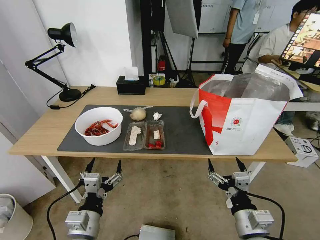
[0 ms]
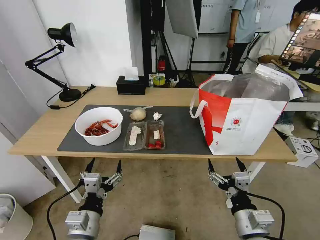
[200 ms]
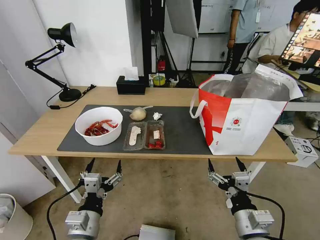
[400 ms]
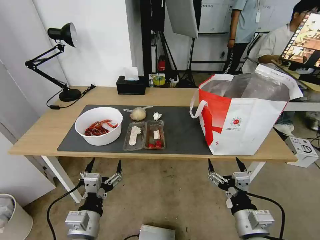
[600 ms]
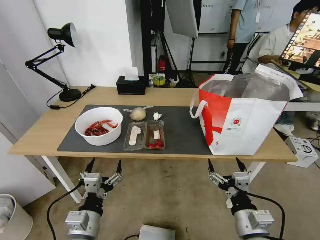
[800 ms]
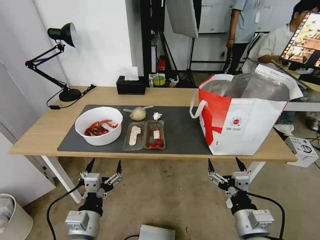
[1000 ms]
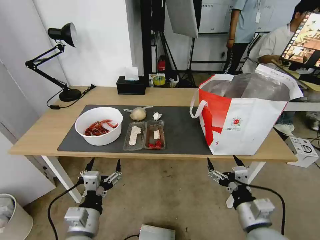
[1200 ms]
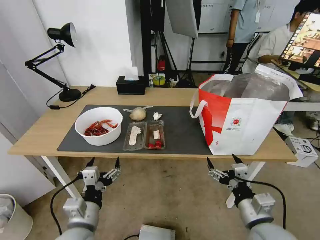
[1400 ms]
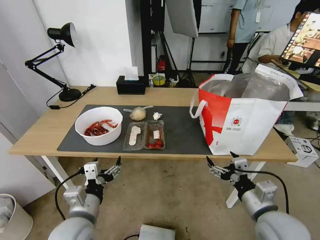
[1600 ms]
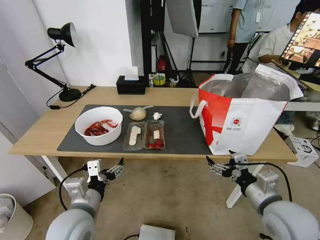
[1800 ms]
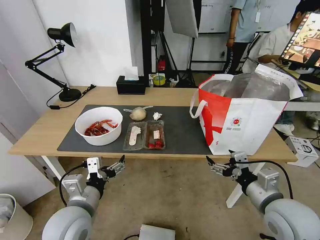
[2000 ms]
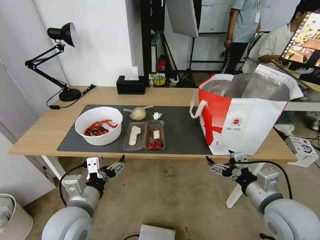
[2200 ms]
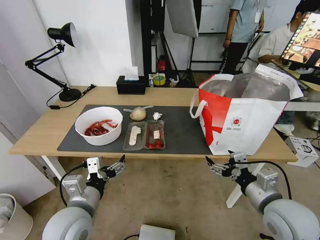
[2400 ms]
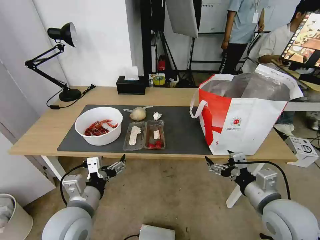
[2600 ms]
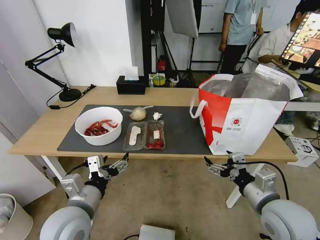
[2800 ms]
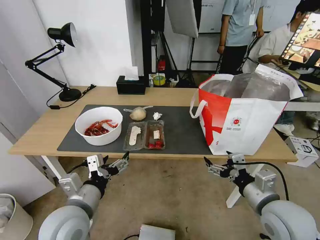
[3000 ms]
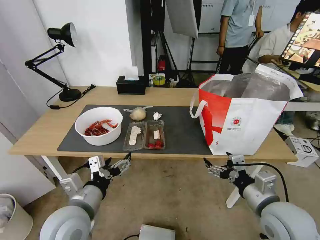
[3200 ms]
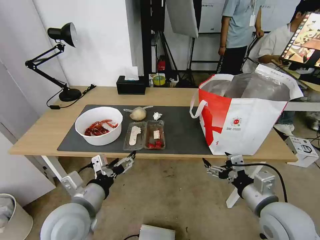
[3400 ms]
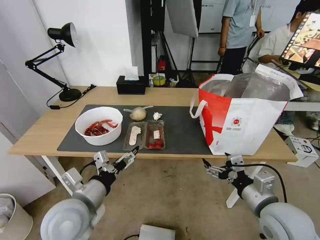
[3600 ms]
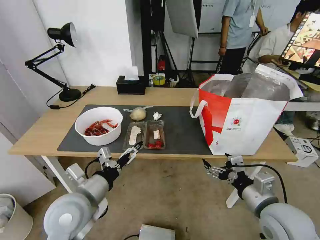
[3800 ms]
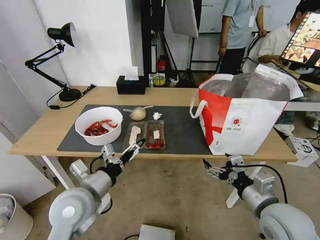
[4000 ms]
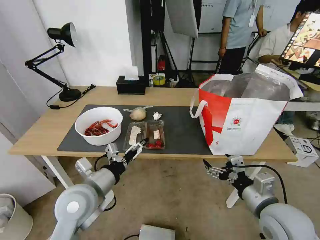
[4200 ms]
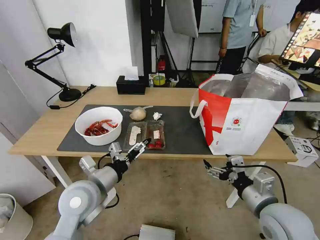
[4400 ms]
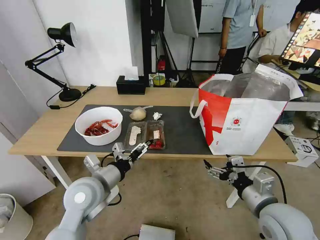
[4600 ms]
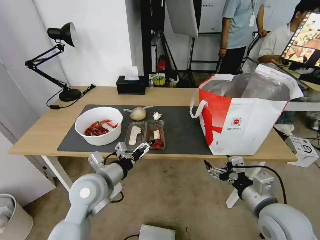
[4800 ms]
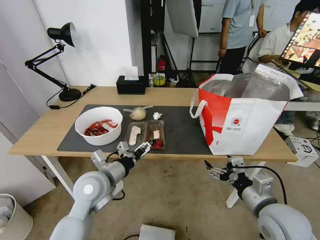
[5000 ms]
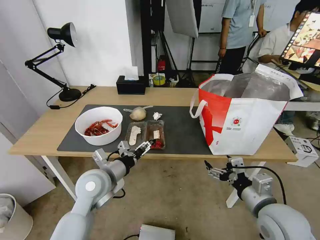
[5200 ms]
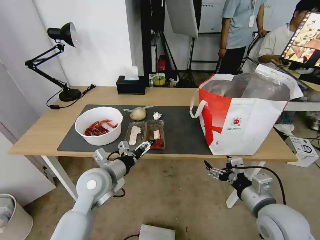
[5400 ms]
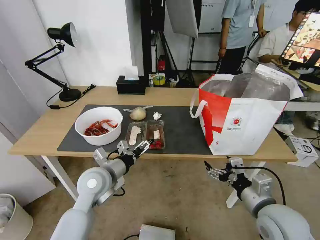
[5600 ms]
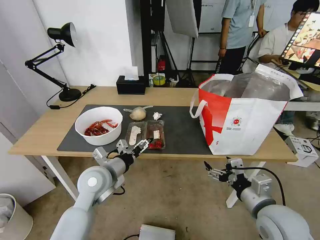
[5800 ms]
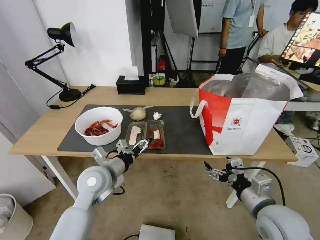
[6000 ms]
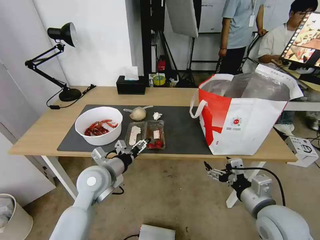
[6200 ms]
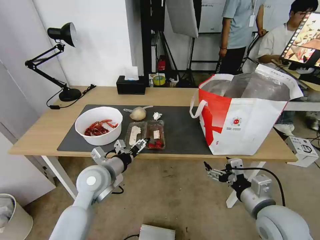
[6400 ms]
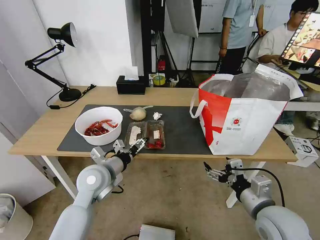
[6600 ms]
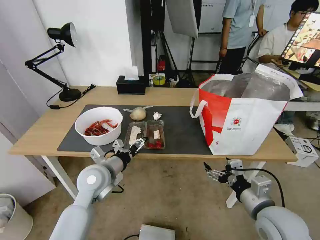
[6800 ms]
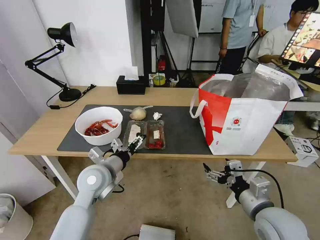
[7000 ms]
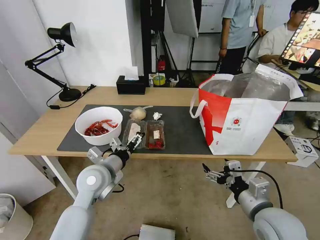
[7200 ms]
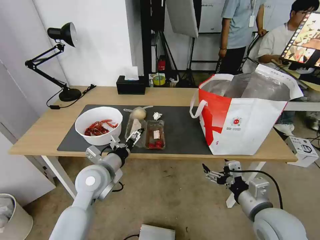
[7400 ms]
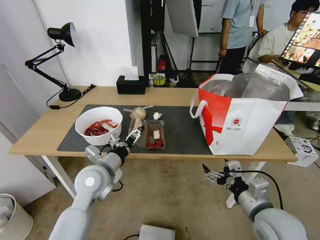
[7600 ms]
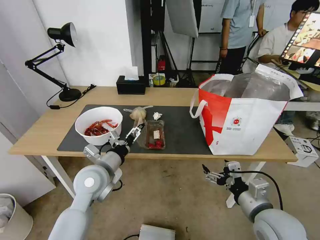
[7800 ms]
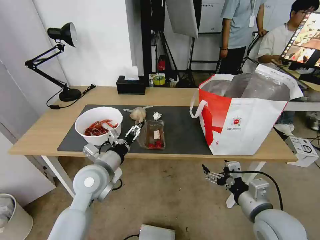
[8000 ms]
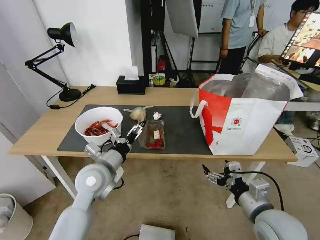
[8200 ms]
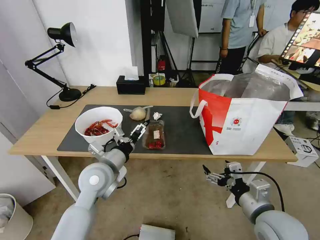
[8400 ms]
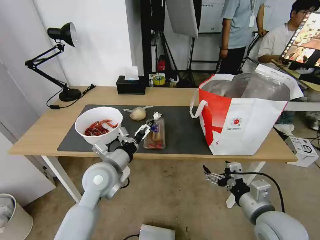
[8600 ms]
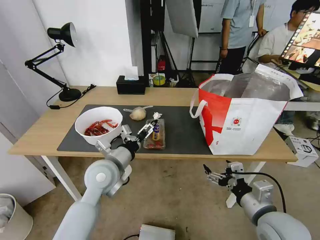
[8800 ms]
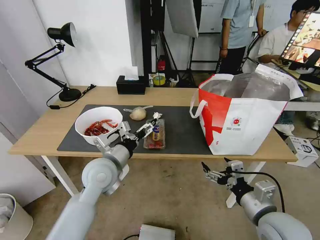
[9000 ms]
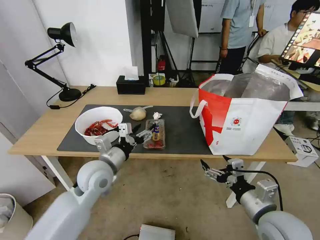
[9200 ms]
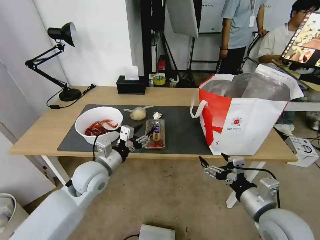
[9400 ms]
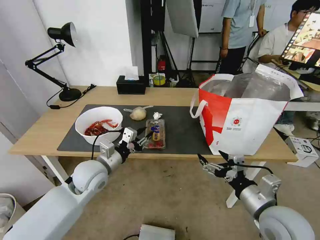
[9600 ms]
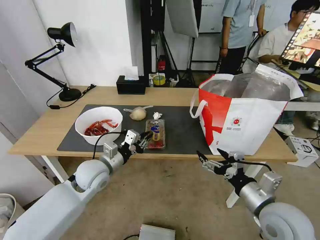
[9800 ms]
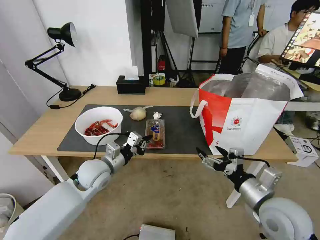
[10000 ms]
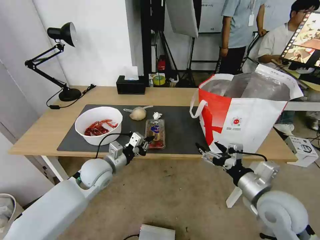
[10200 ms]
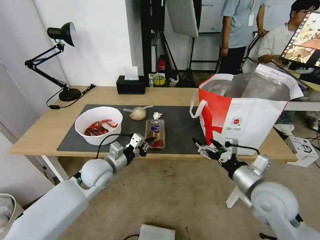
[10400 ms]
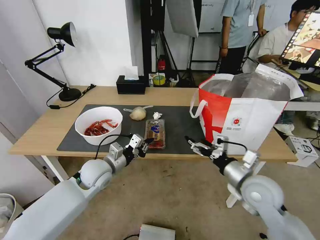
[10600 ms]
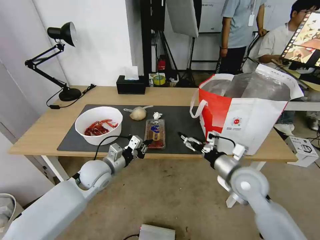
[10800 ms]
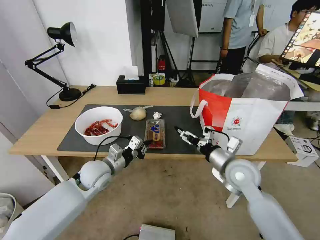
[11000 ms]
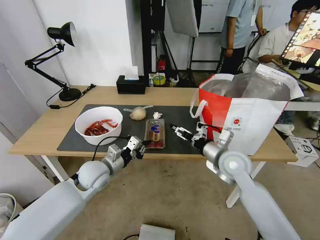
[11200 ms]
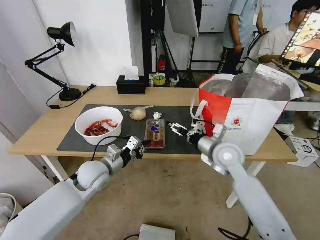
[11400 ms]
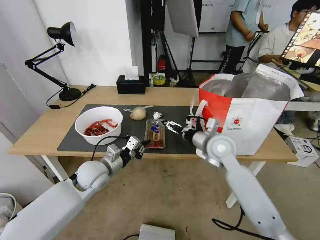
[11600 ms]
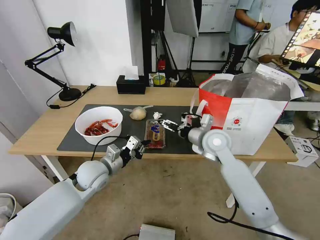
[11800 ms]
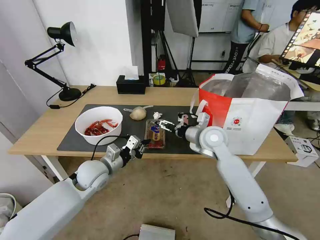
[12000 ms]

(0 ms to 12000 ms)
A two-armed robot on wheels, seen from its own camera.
Task of the whole recording: Pick up the trash from the table and place it into the takeout bag.
1600 ms - 3000 ms: There are only small adjustments of the grippers.
3000 ms - 4400 ms: The left gripper goes approximately 5 cm forward.
4400 ms - 6000 ms: The left gripper shifts about 5 cm forward.
6000 ms - 9000 ms: The grippers stay close to where they were, moving slightly.
9000 ms - 10400 ms: The right gripper shifts some 5 cm forward. Meanwhile the left gripper is displaced downward by about 5 cm, and closes its fingers.
10400 ms - 12000 ms: The right gripper heads forward and to the left, covering some 20 cm.

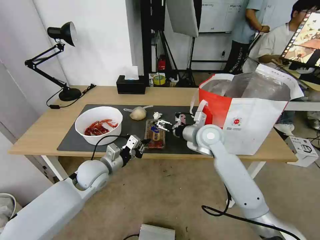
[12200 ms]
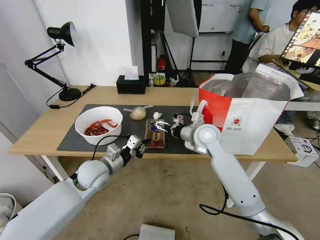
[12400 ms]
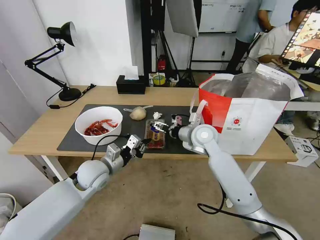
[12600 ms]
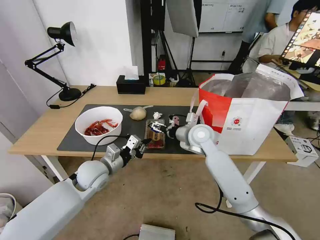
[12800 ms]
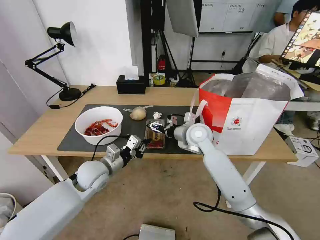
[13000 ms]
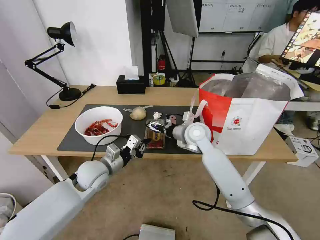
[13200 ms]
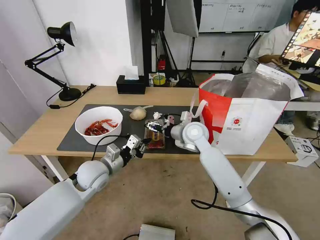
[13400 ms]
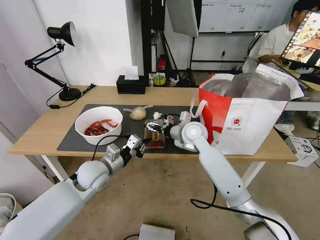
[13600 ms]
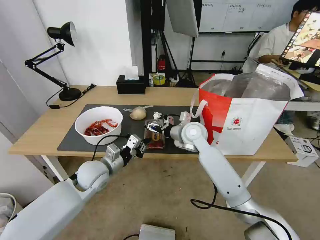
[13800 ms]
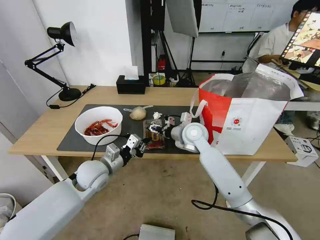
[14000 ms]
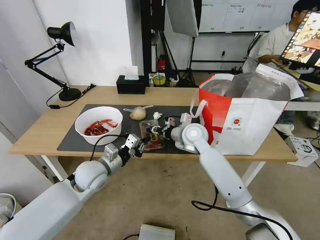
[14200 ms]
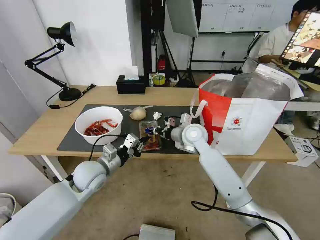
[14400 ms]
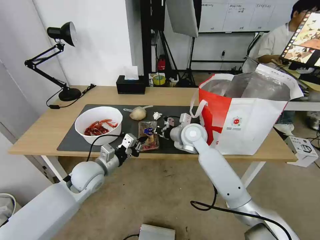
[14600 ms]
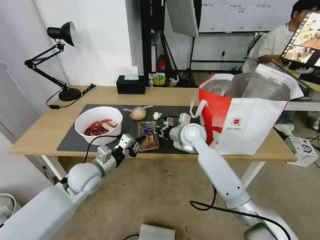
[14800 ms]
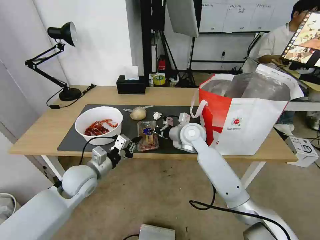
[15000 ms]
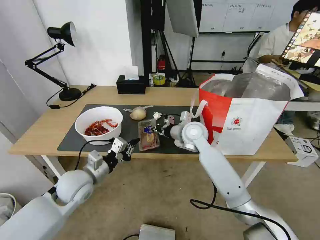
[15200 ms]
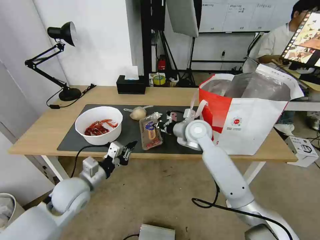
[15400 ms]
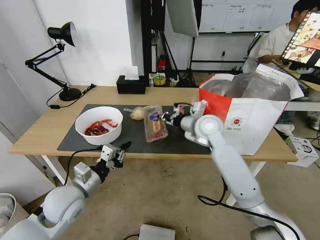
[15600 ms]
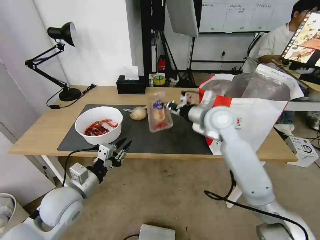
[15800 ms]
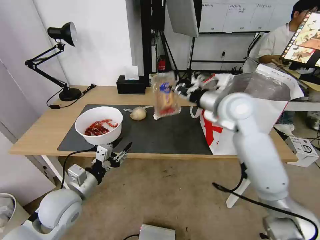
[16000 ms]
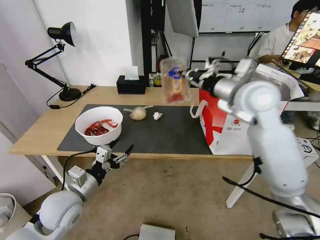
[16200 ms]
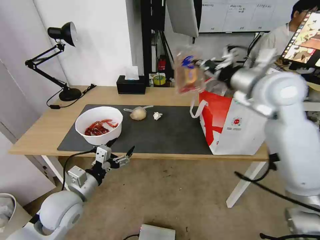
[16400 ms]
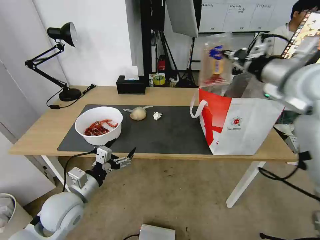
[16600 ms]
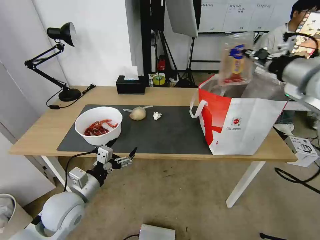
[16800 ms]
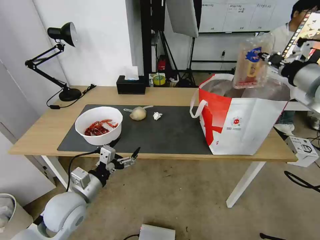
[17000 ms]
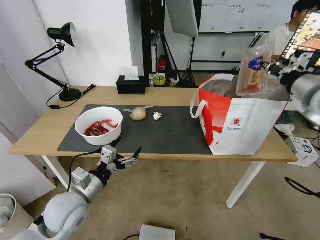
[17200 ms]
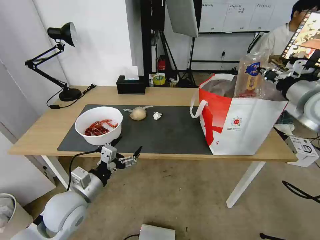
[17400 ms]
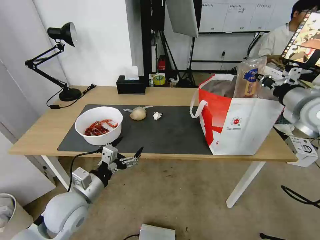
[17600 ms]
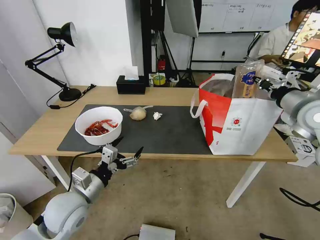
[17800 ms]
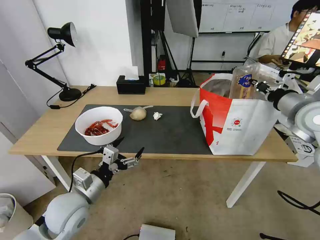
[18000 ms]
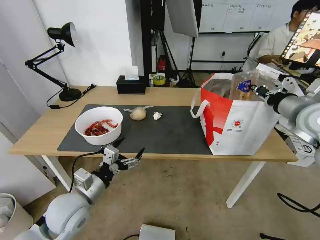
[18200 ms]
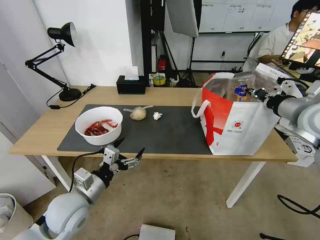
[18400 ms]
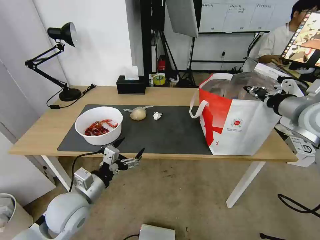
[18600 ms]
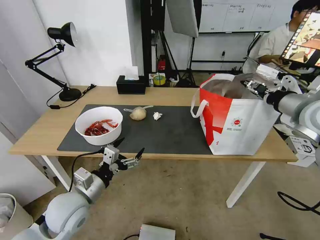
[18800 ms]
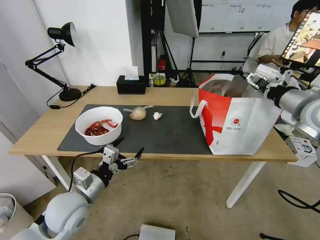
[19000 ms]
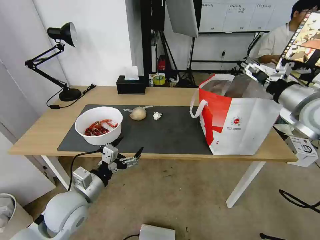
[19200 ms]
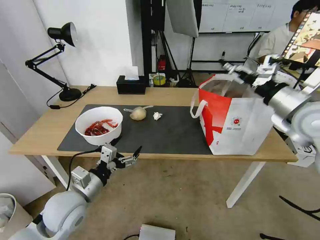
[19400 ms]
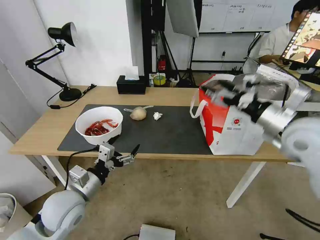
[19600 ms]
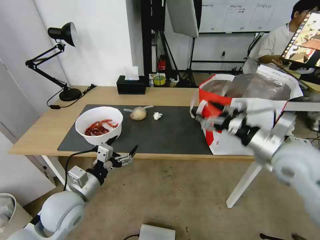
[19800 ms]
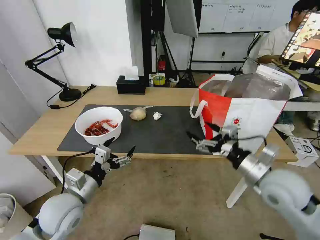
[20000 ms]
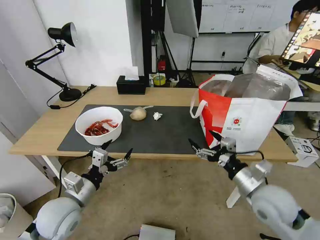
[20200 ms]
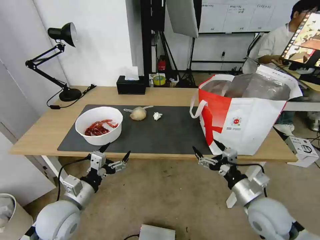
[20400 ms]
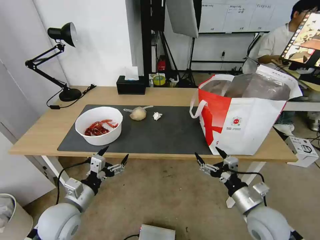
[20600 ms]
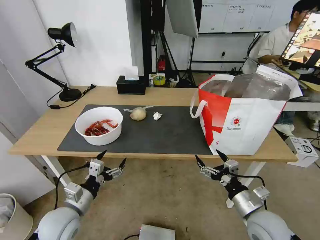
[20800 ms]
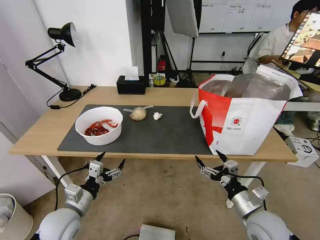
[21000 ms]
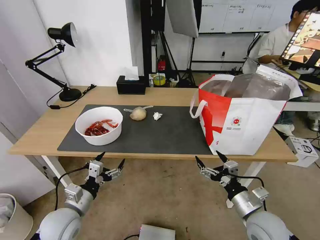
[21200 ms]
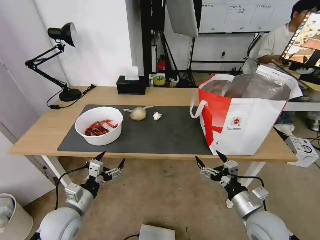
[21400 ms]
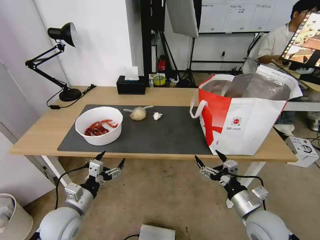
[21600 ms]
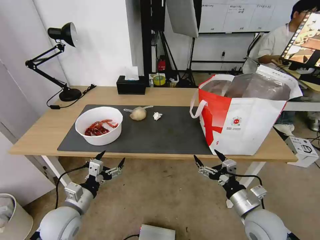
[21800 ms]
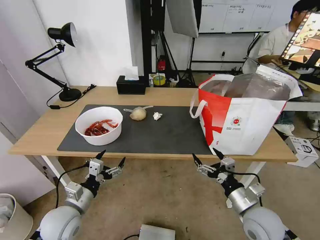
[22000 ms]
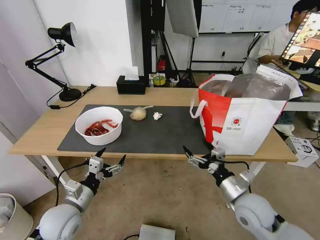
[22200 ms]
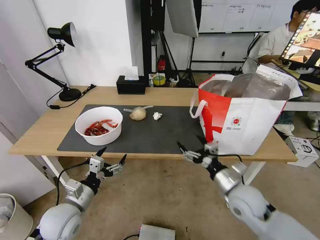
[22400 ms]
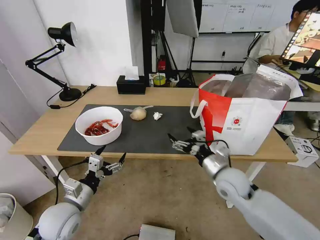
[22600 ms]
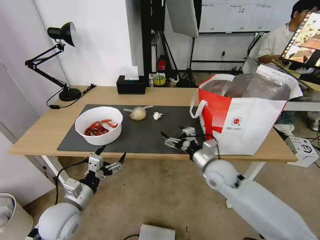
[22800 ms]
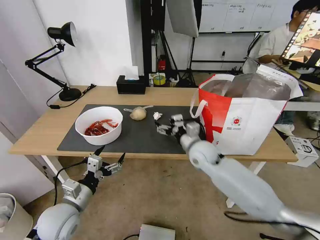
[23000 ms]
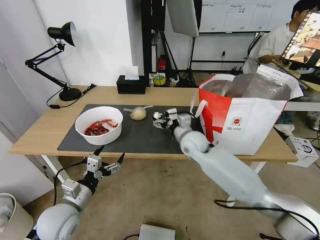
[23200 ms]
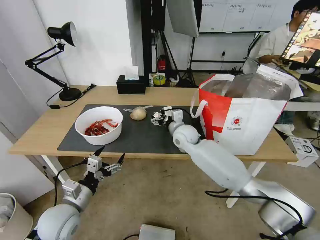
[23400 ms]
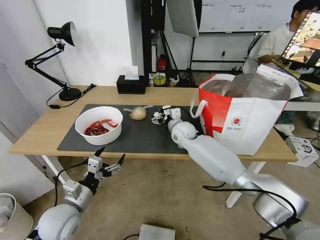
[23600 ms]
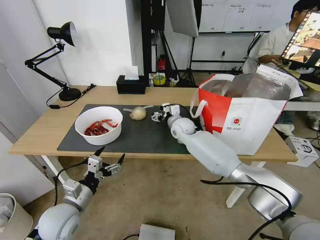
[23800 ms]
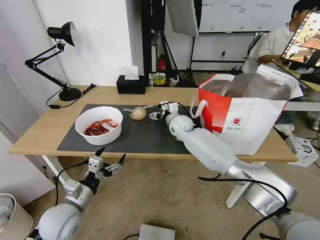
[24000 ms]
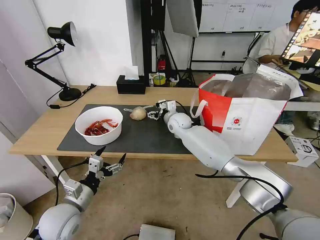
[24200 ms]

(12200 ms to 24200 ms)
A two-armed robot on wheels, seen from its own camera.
Task of the whole recording: Pick up the trash from the table and place it into the takeout bag.
12200 ms - 13800 ms: The right gripper ends up about 5 cm from where it was.
13800 ms - 15200 ms: The right gripper closes; the left gripper moves some 5 cm.
15200 ms - 16600 ms: The left gripper is displaced backward by about 5 cm, and opens. The right gripper moves upward and to the right, roughly 30 cm.
16600 ms - 18200 ms: The right gripper travels downward and to the right by about 10 cm.
18200 ms - 19800 ms: The right gripper heads backward, to the left and downward, covering some 15 cm, and opens up.
19800 ms - 21200 ms: The left gripper is displaced downward by about 5 cm. Meanwhile the right gripper shifts some 20 cm downward and backward.
21200 ms - 22600 ms: The right gripper heads forward and to the left, covering approximately 15 cm.
22600 ms - 24200 ms: The right gripper travels forward and to the left by about 30 cm.
